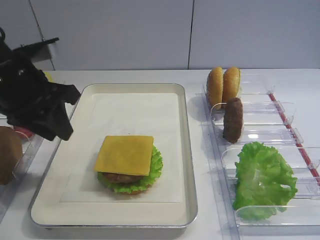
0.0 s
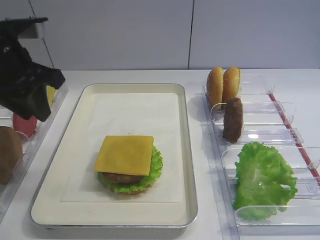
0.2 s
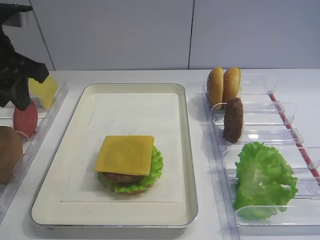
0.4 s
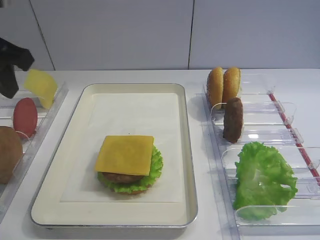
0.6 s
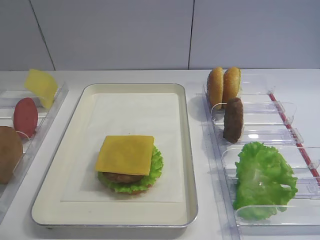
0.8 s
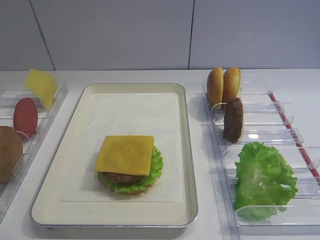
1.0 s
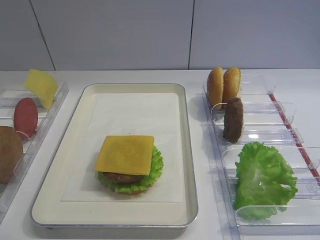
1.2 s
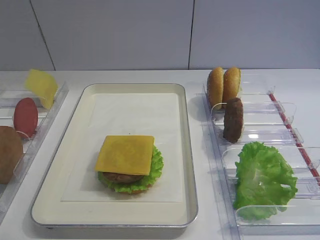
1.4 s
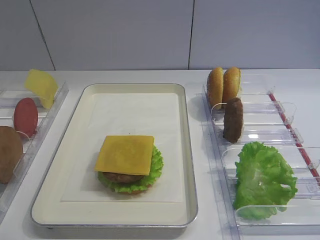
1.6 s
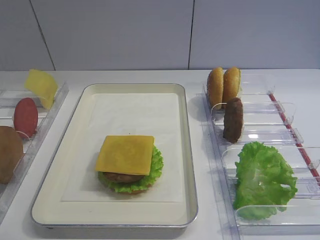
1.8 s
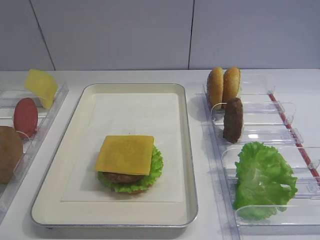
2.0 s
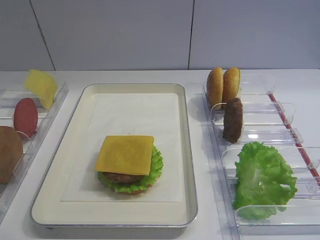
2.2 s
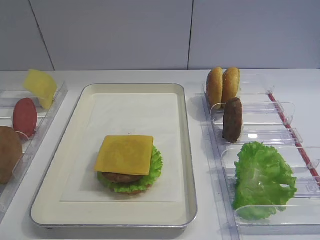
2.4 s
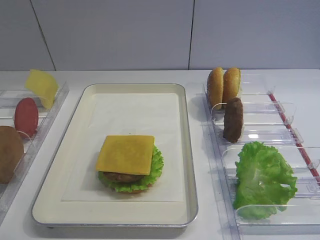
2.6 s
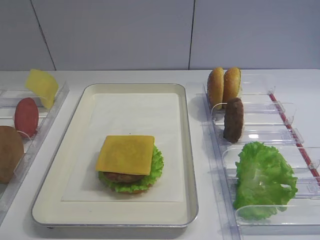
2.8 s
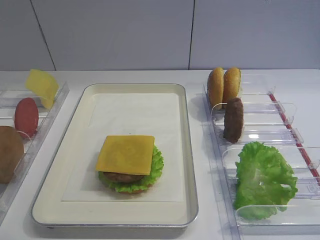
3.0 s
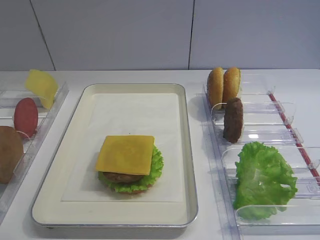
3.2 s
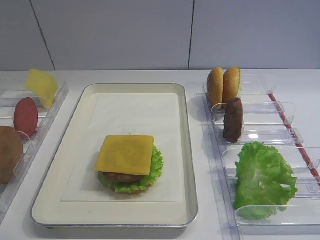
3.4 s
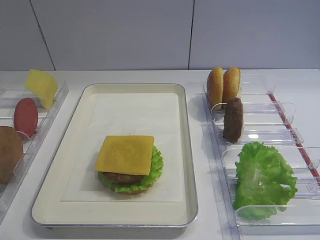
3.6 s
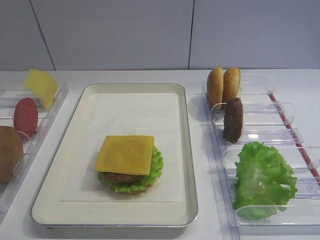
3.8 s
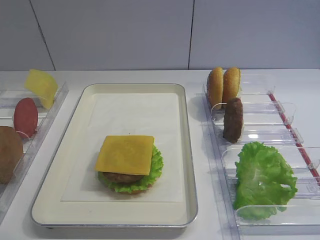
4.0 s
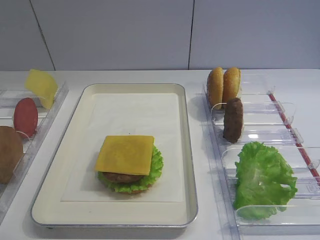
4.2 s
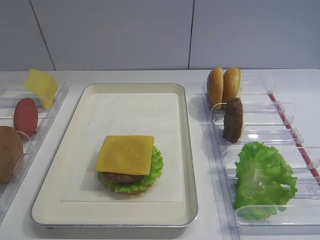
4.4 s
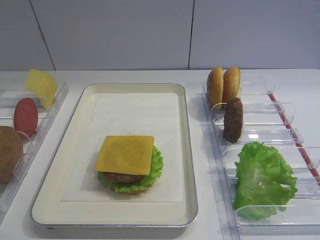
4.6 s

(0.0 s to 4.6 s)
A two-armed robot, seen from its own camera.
0.0 s - 1.6 s: The left gripper moves backward, roughly 25 cm.
3.0 s - 4.6 s: Neither gripper changes place.

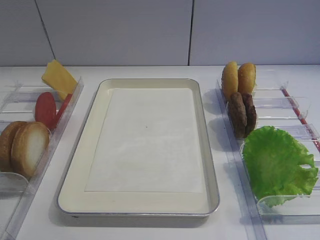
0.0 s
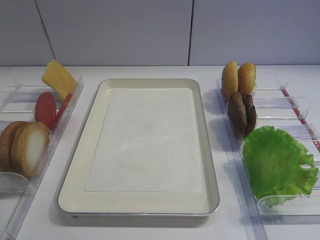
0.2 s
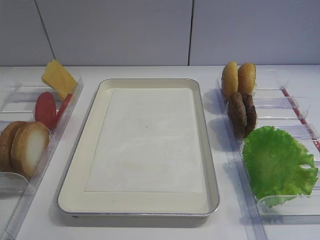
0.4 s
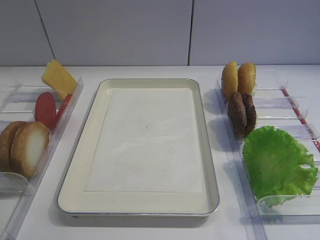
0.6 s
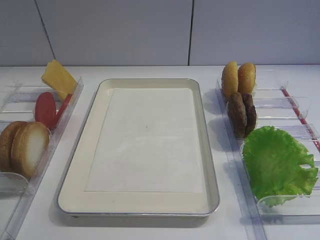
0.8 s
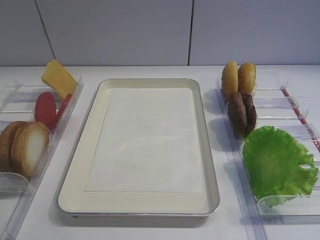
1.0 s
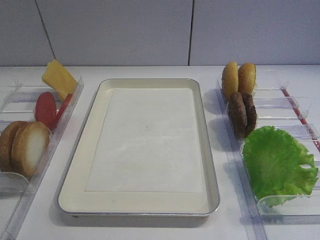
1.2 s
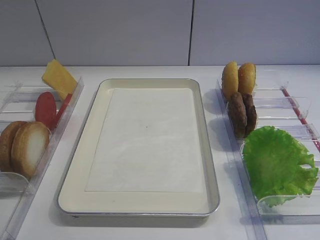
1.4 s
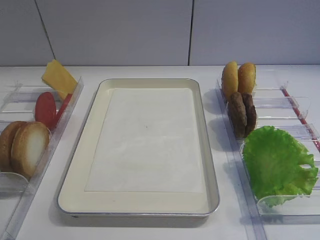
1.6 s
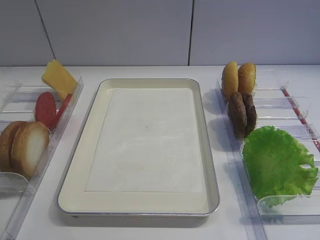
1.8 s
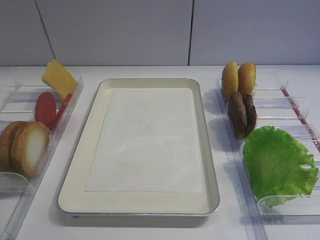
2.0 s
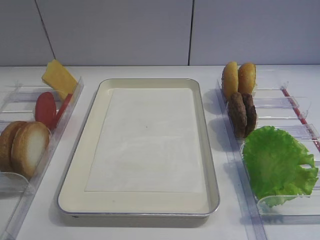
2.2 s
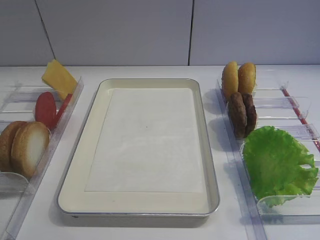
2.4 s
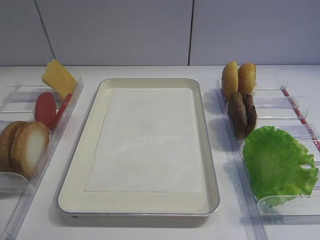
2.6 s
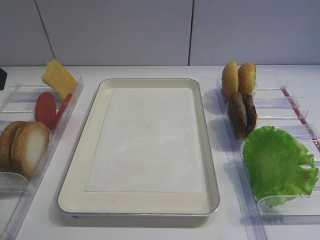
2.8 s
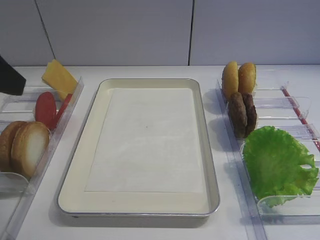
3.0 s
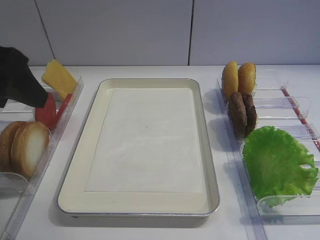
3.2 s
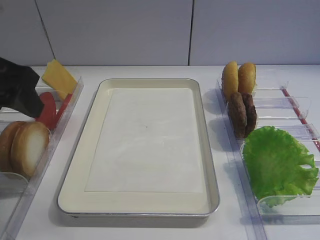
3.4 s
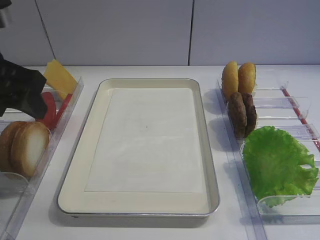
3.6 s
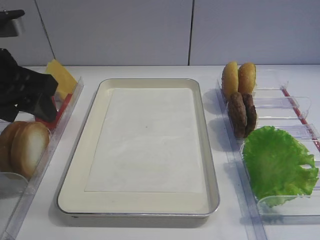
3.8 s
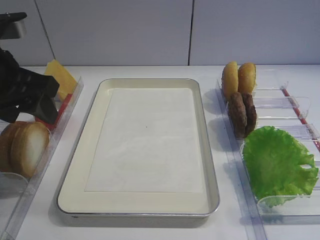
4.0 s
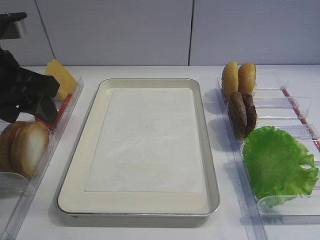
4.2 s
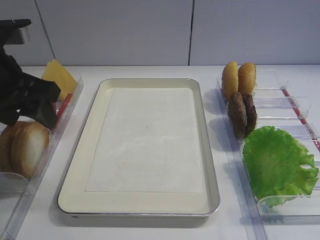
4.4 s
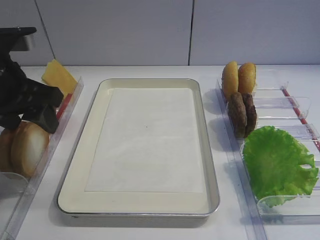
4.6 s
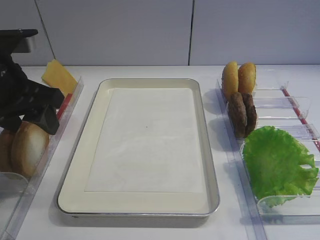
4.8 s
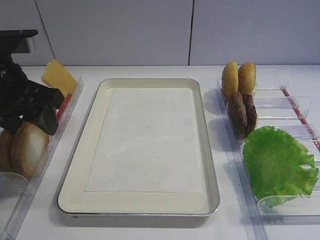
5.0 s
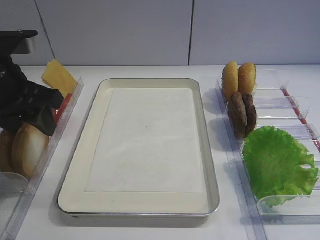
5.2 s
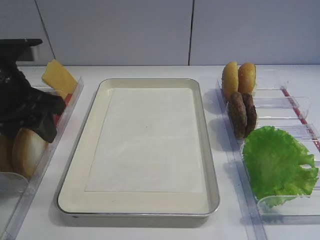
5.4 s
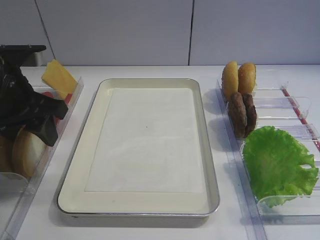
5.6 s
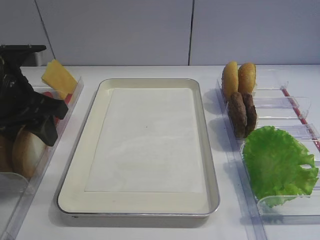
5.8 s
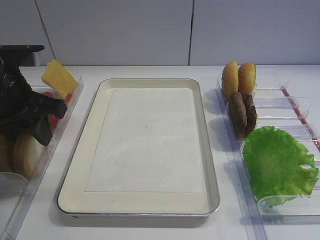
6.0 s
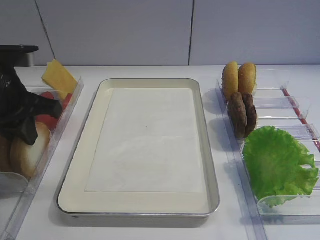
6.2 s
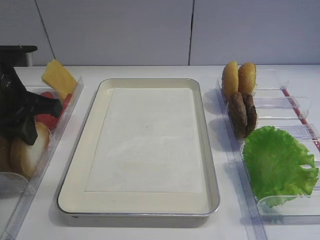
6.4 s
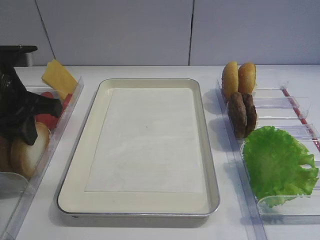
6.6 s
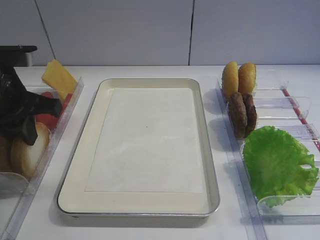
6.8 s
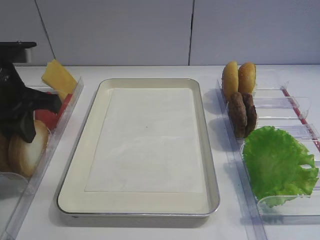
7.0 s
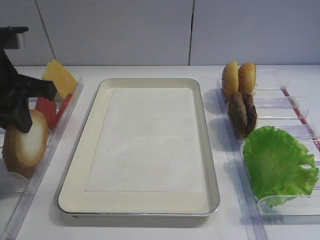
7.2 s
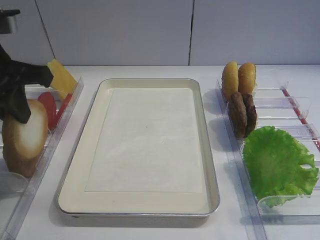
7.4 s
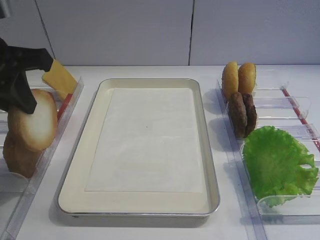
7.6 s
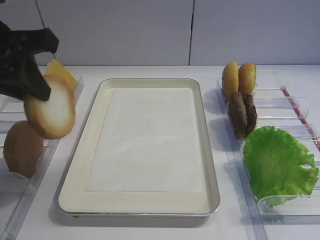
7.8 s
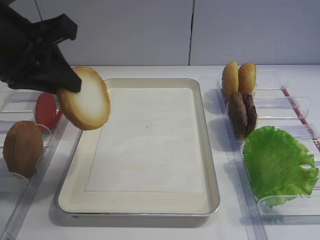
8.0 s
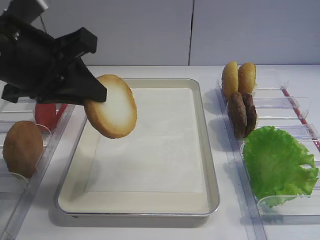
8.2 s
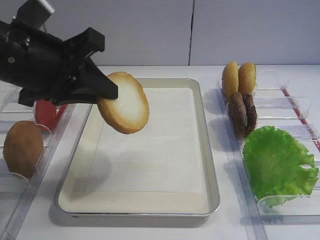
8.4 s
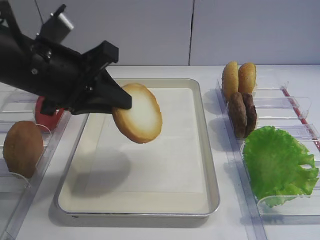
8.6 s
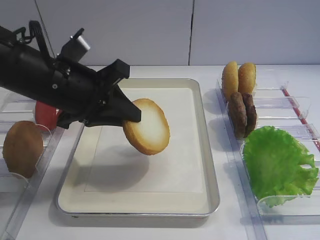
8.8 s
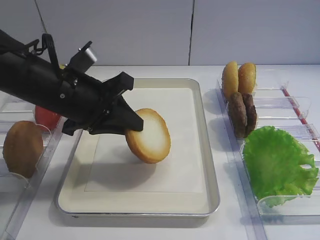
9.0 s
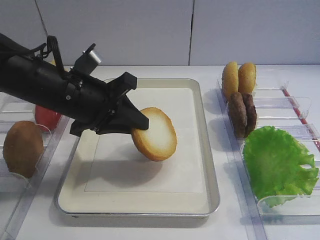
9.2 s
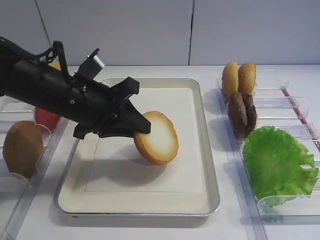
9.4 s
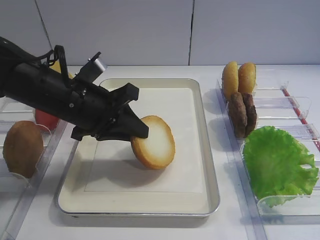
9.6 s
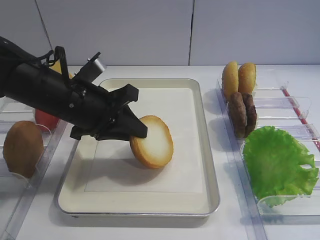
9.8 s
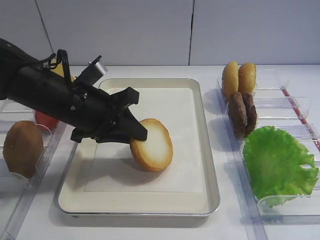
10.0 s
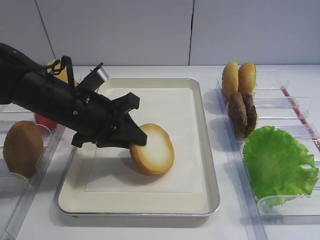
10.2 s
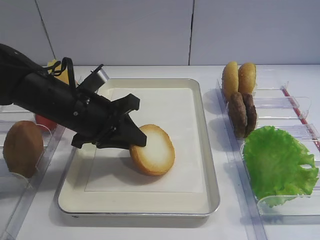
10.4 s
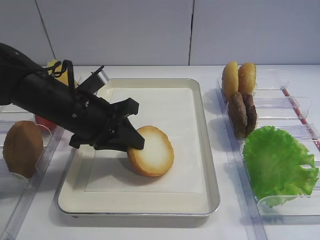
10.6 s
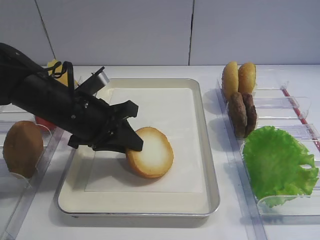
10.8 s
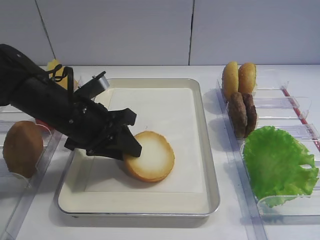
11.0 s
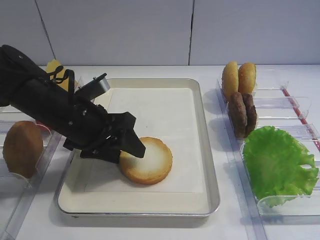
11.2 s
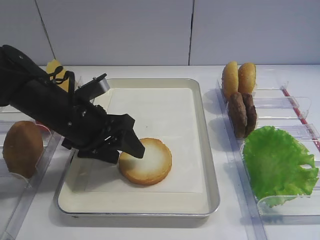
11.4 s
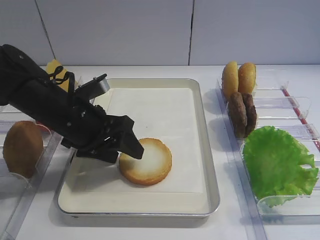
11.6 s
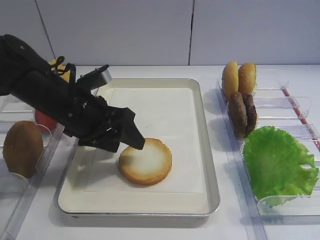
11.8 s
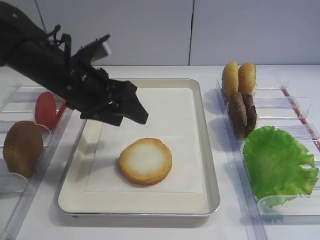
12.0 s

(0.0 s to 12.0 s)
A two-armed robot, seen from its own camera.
Step, 0.0 s - 7.4 s: Pick up the bread slice with the left gripper.
1.6 s - 3.0 s: The left gripper heads forward, covering about 15 cm.
3.0 s - 4.4 s: The left gripper goes roughly 10 cm forward and downward.
4.4 s - 6.0 s: The left gripper closes its fingers.
6.0 s - 7.6 s: The left gripper travels upward by about 5 cm, and closes up.
7.6 s - 9.0 s: The left gripper shifts some 15 cm downward and to the right.
9.0 s - 10.4 s: The grippers stay close to where they were, moving slightly.
10.4 s - 12.0 s: The left gripper opens up.

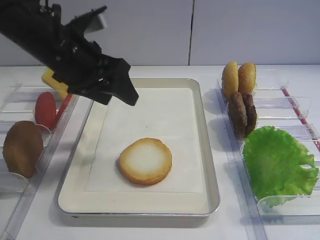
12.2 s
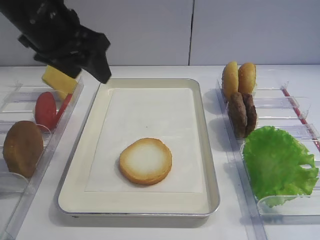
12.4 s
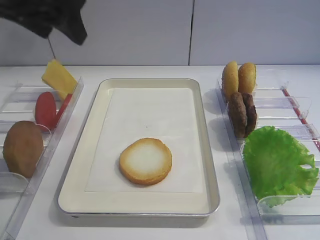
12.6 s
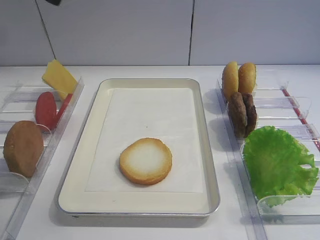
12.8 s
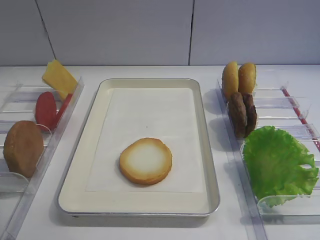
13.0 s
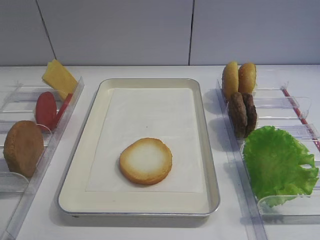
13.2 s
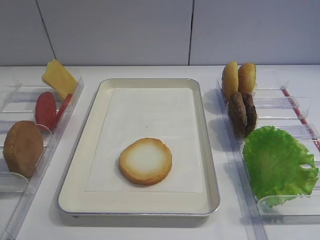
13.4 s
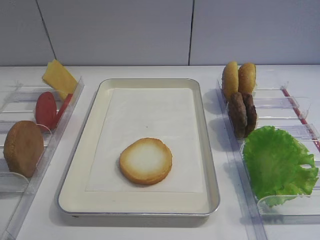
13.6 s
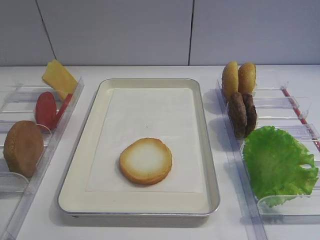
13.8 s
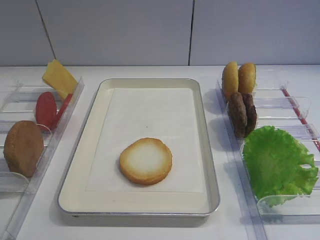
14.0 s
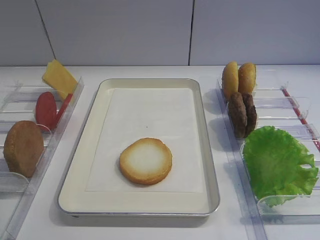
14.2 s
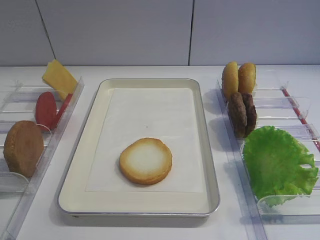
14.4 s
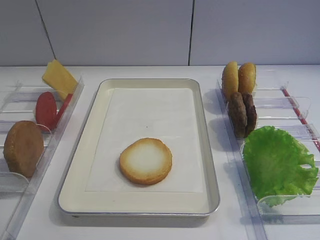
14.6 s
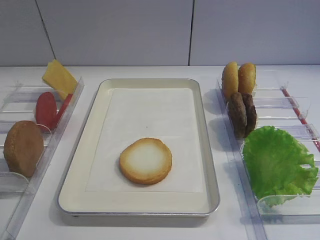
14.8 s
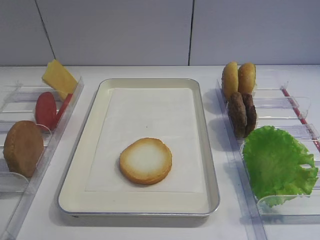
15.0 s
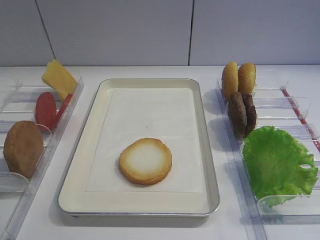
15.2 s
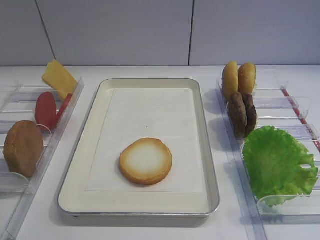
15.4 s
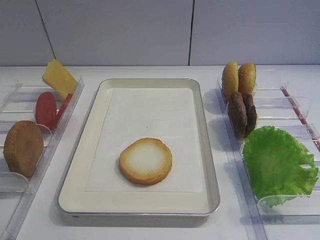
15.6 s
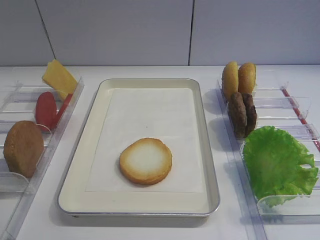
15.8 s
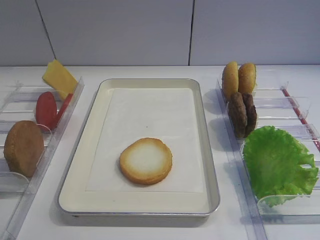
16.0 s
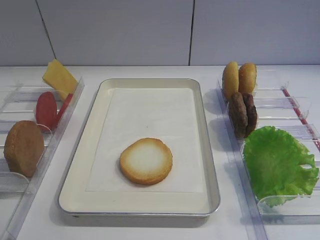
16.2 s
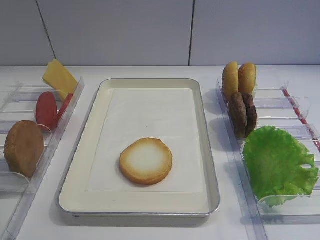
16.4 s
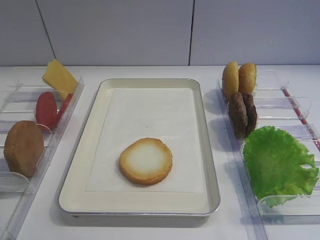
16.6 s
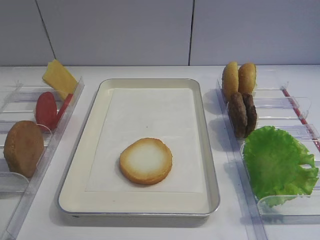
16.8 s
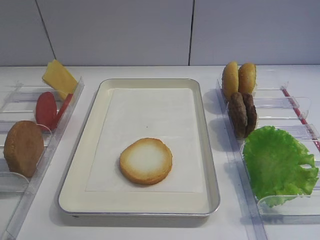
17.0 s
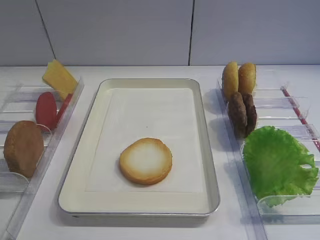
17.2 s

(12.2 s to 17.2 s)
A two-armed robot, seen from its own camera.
12.2 s - 13.8 s: The left gripper moves backward, upward and to the left, approximately 35 cm.

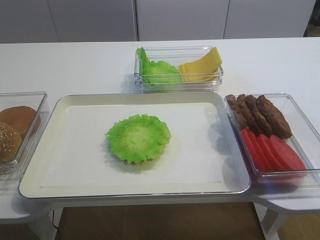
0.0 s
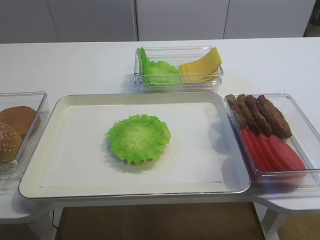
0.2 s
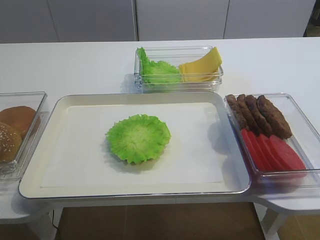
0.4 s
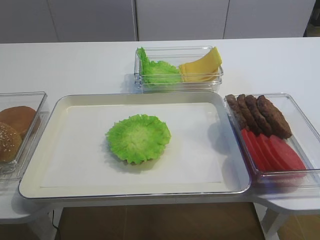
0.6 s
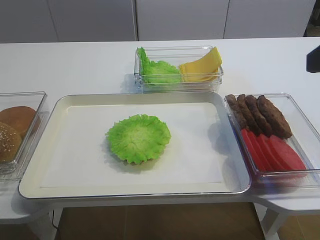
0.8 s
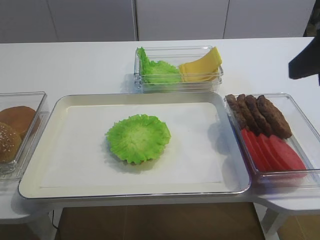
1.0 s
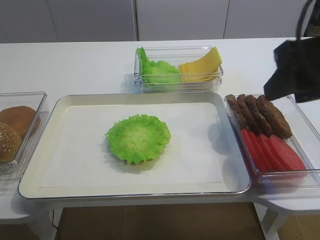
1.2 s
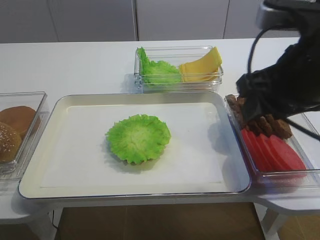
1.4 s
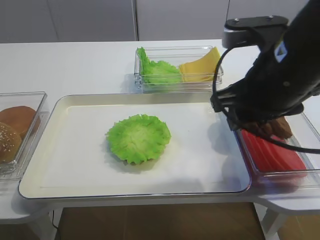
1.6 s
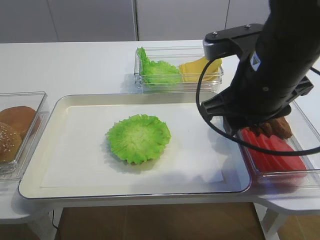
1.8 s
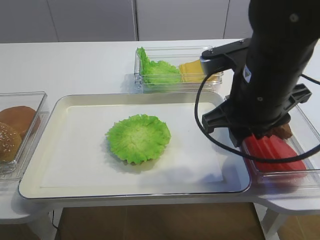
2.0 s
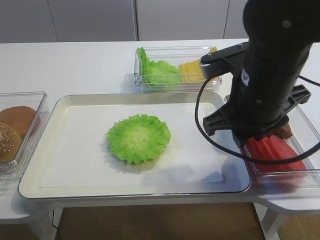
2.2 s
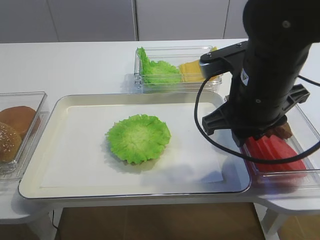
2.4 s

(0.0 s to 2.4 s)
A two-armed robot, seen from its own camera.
0.0 s - 1.2 s: The right gripper is displaced forward by about 20 cm.
1.2 s - 2.4 s: The right gripper is displaced to the left and downward by approximately 10 cm, and closes up.
